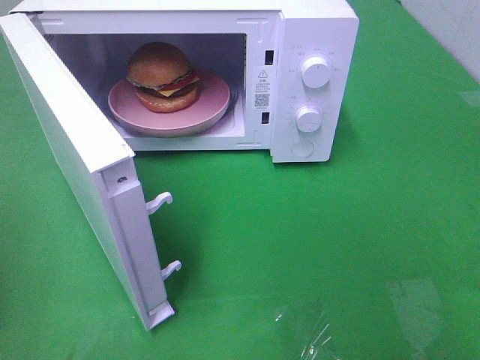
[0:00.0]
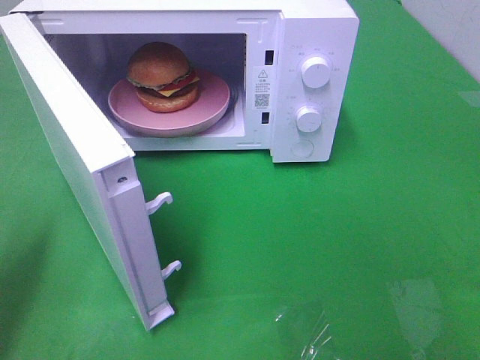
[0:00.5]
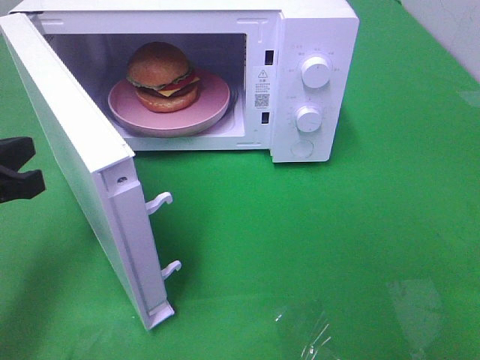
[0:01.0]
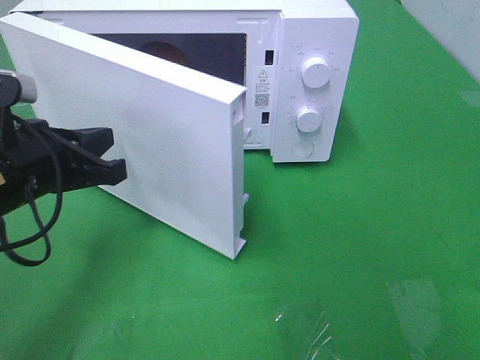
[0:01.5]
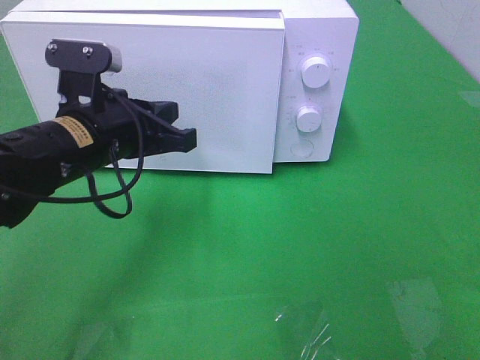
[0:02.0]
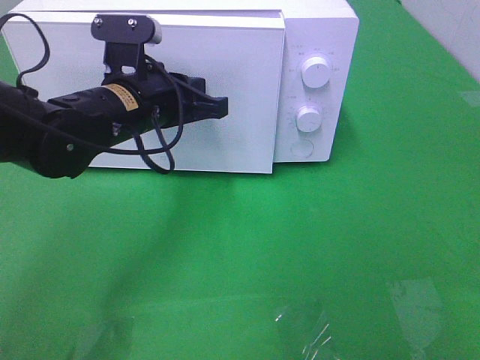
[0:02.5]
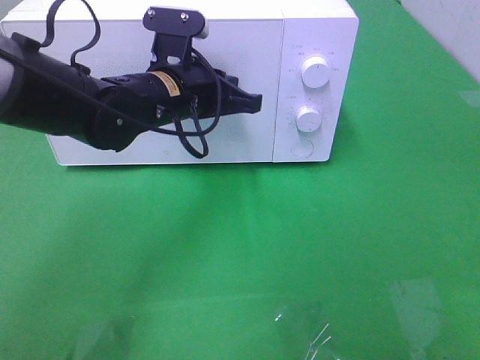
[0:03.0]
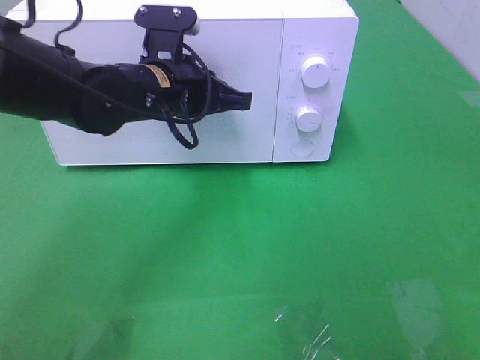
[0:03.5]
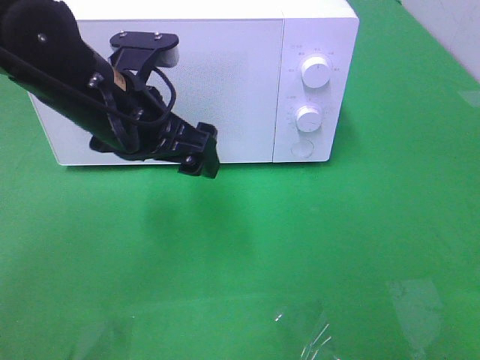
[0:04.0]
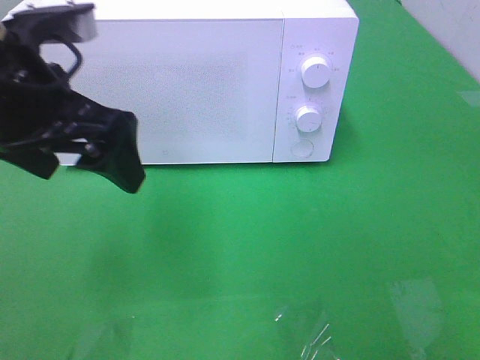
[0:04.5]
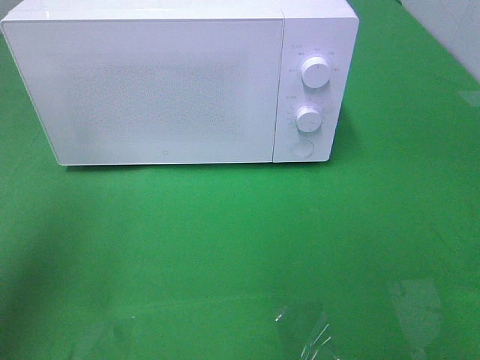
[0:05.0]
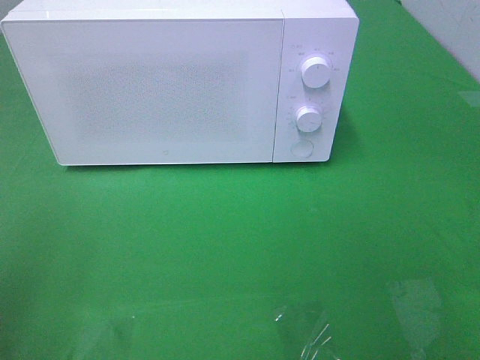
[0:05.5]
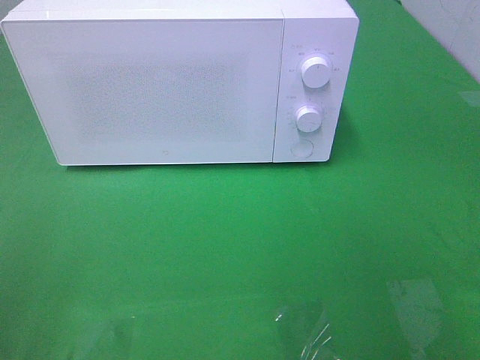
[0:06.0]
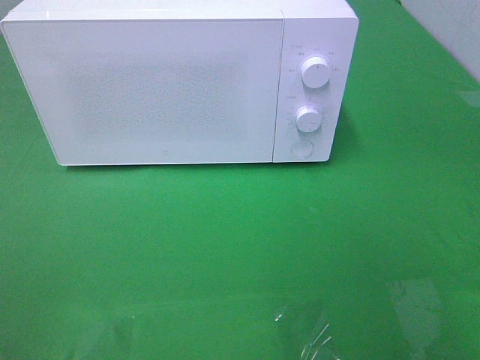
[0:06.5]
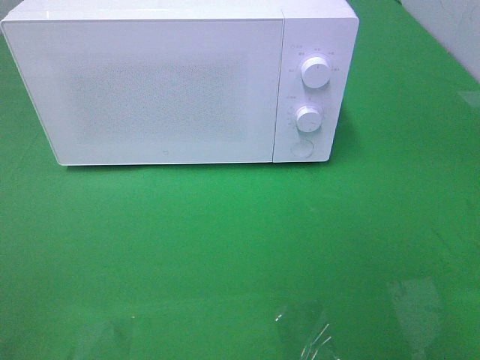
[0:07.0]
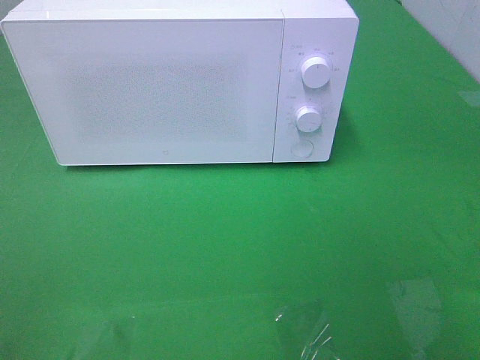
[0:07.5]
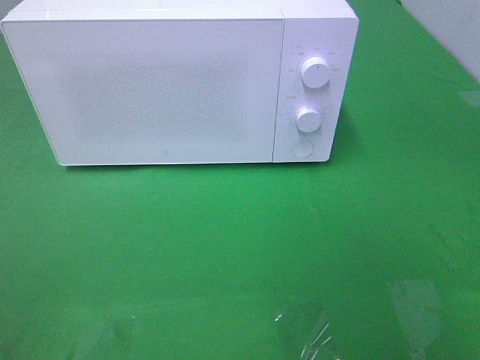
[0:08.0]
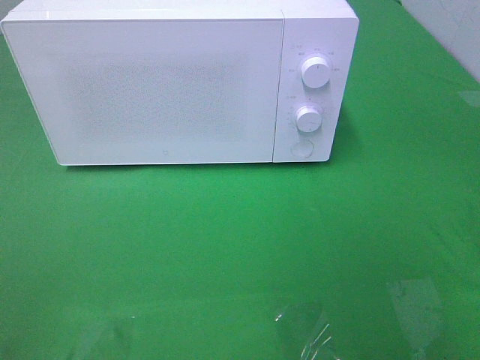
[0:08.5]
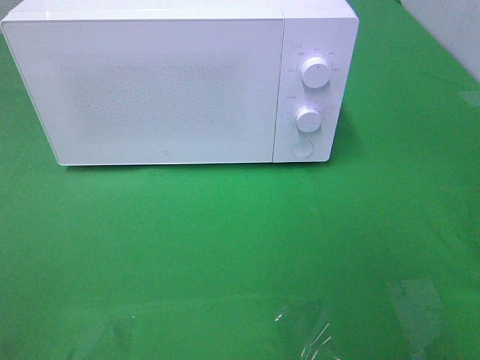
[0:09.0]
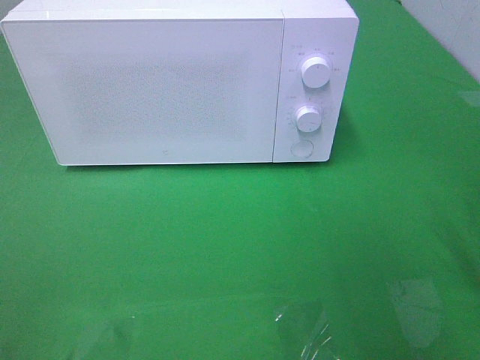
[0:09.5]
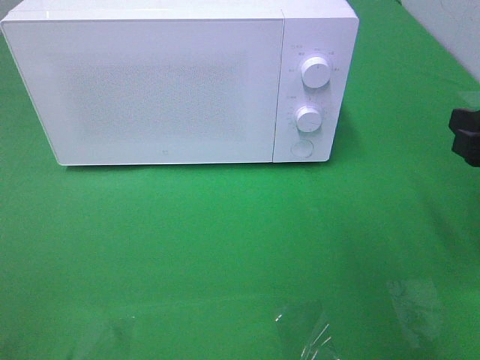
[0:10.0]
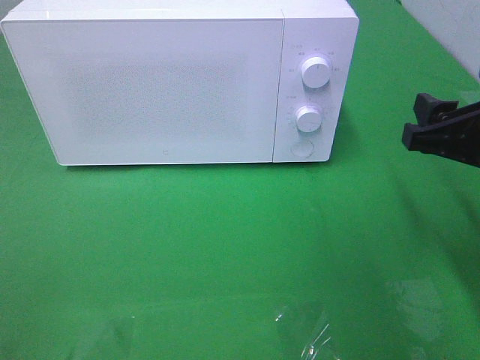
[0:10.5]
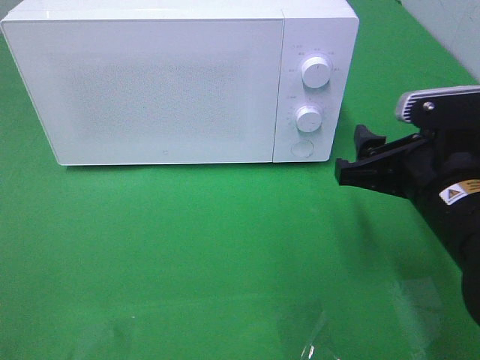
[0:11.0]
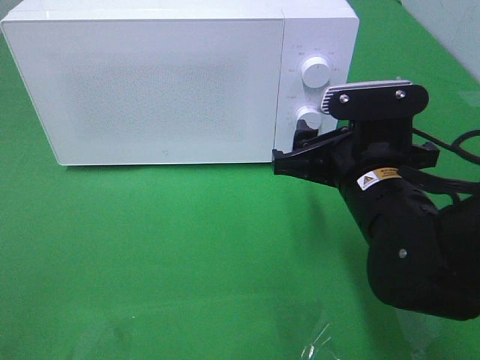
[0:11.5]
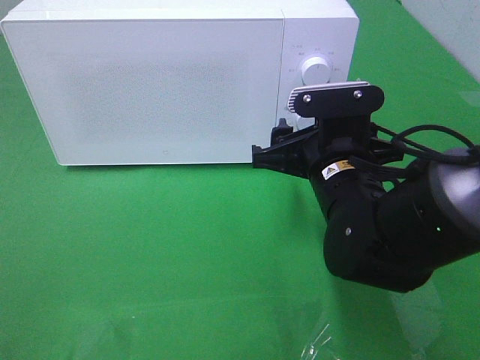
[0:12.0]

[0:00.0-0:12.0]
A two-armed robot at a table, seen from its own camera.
Task of the whole recording: Heat the burger.
Step, 0:00.0 to 0:03.5: Left hand: close the microwave door.
0:00.0 to 0:02.0: The left gripper heads to the right and forward, covering approximately 25 cm.
0:02.0 to 0:04.0: The left gripper opens.
0:04.0 to 0:06.0: The left gripper is displaced backward and to the left by approximately 30 cm.
0:08.0 to 0:10.0: The right gripper shifts approximately 20 cm forward.
0:10.0 to 0:12.0: The right gripper shifts about 20 cm to the left and downward.

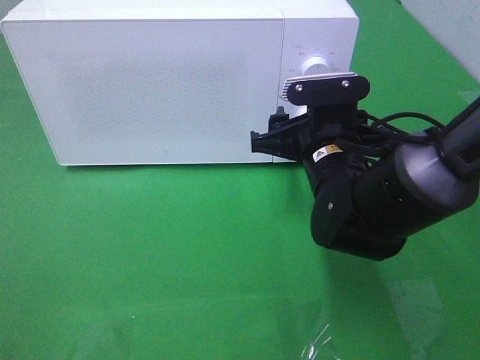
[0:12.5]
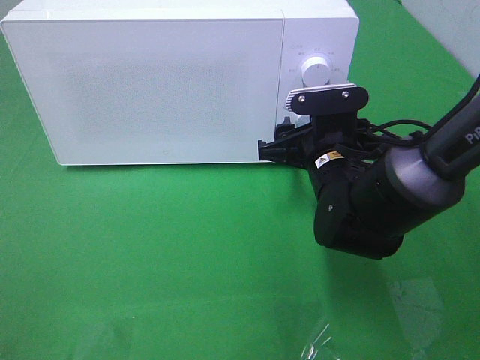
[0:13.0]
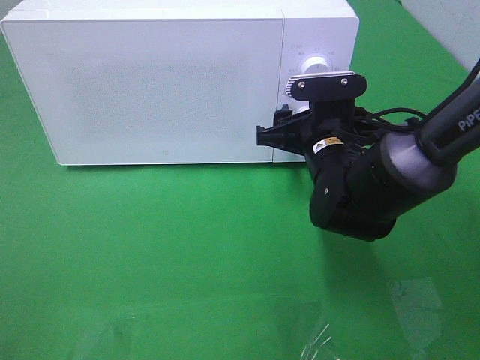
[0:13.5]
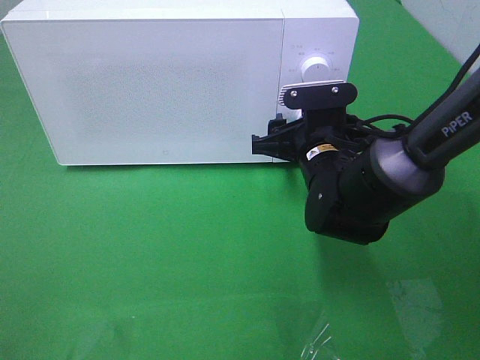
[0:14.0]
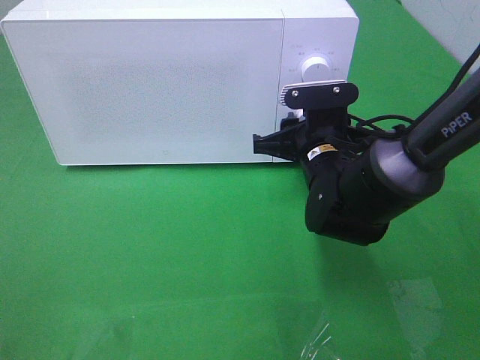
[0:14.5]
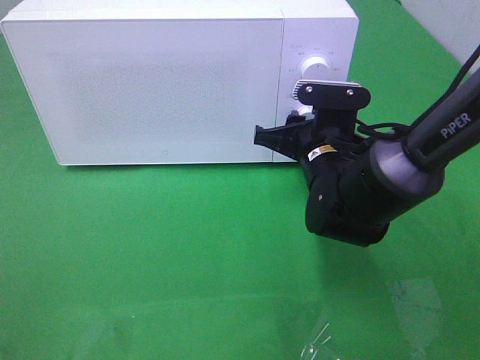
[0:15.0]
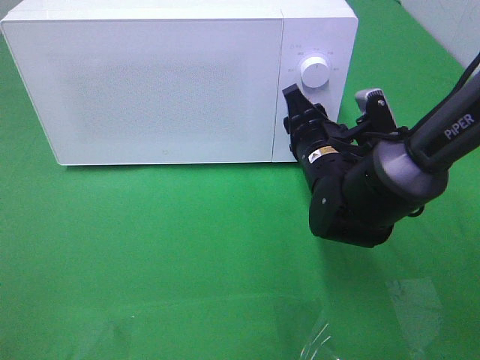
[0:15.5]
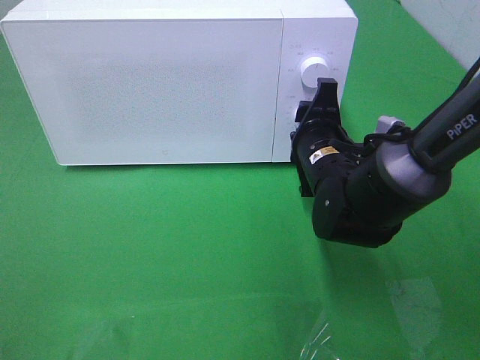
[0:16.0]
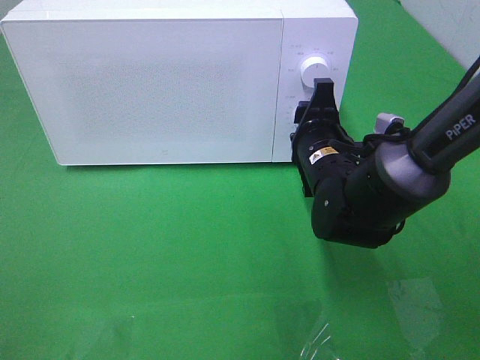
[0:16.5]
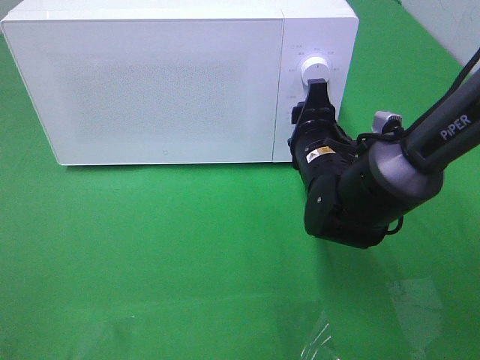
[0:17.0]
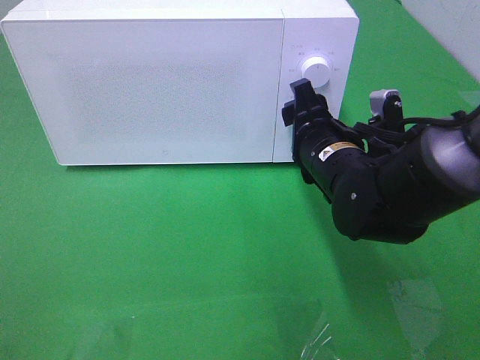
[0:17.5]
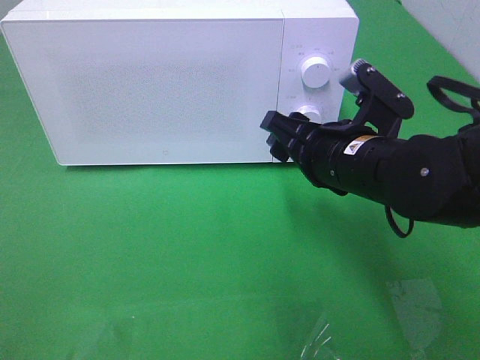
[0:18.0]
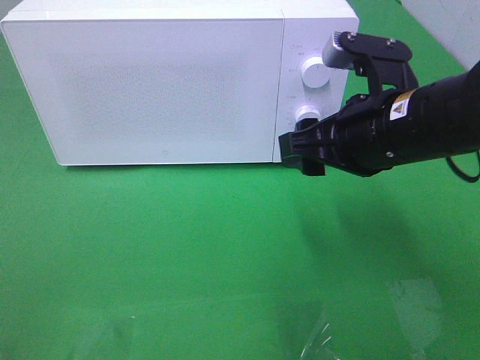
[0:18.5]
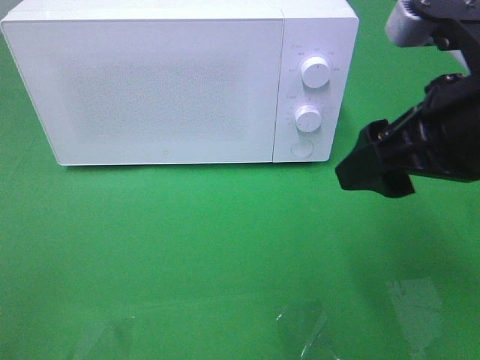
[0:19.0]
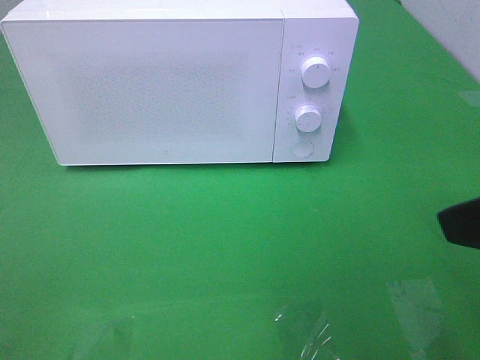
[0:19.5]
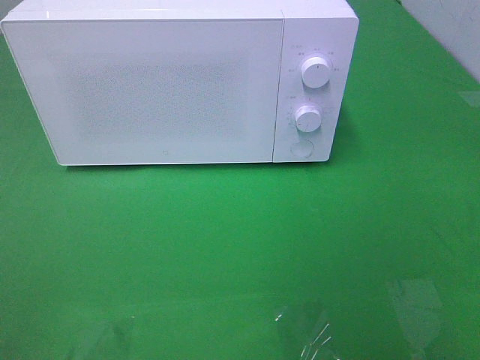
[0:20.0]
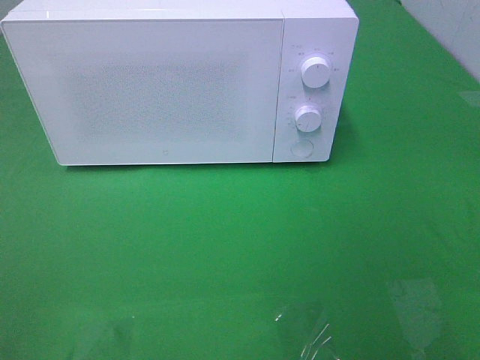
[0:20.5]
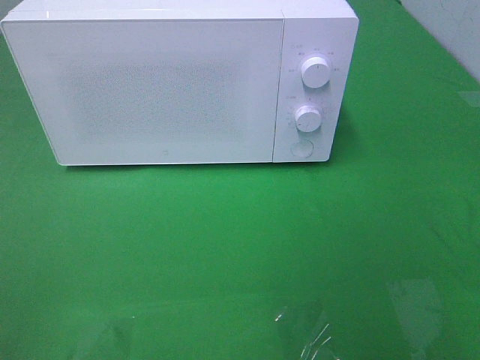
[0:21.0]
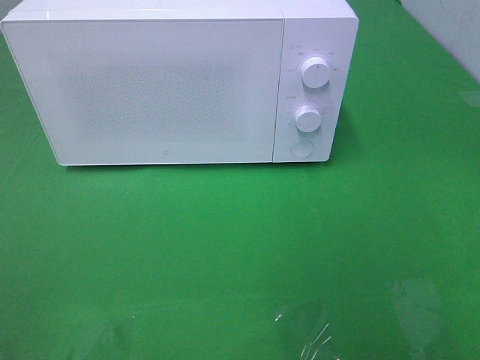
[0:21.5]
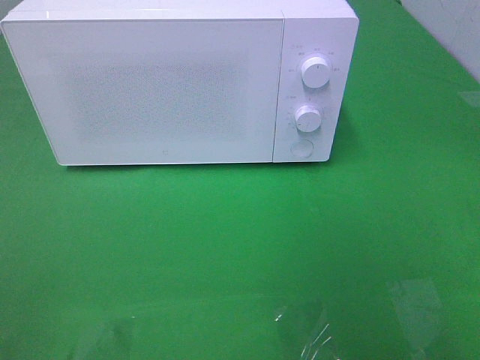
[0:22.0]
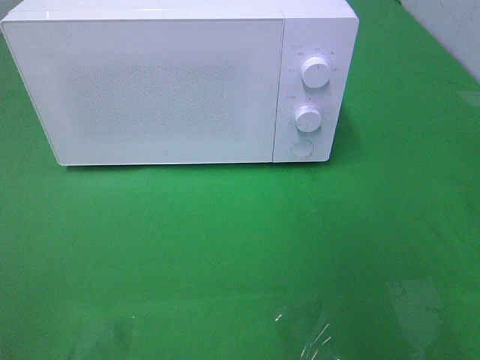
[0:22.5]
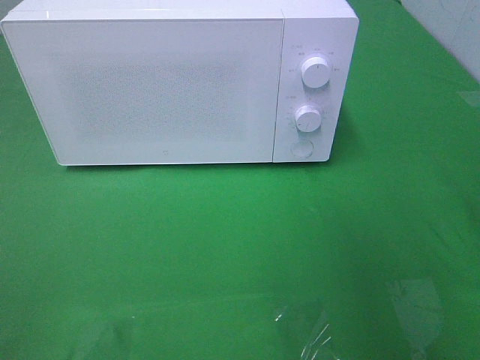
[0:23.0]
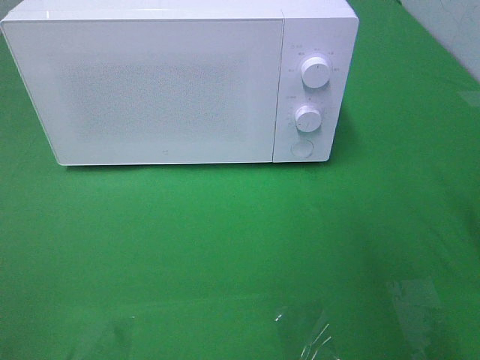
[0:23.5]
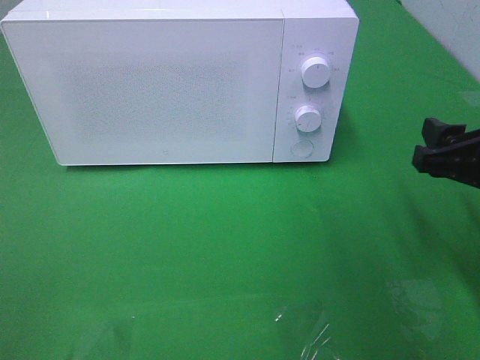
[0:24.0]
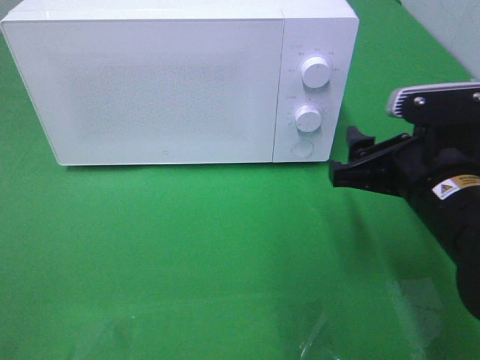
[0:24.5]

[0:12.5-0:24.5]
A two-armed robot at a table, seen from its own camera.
Task of the whole recording: Heat the burger.
Step, 0:12.5 to 0:17.5: Right hand: twist timer button.
0:12.5 to 0:14.5: The grippers move only a little.
0:16.5 to 0:18.5: The right gripper moves upward and backward, some 15 cm.
0:18.5 to 0:20.5: The right gripper moves backward and to the right, some 30 cm.
0:22.5 to 0:24.5: The right gripper moves downward, to the left and forward, approximately 20 cm.

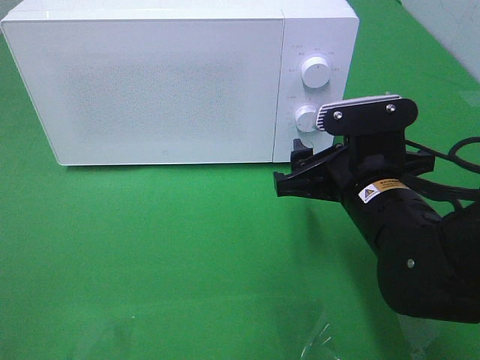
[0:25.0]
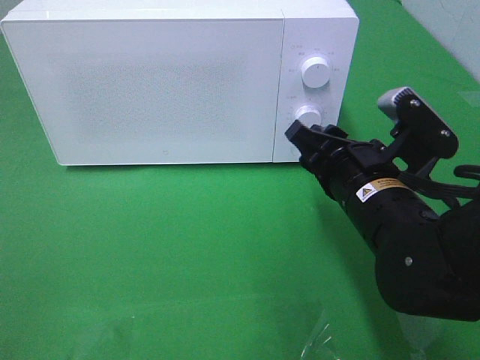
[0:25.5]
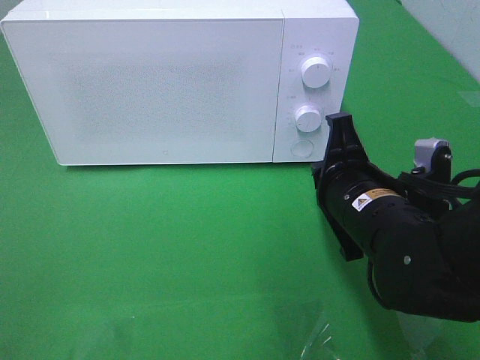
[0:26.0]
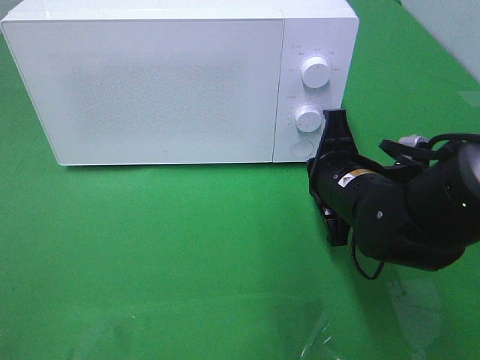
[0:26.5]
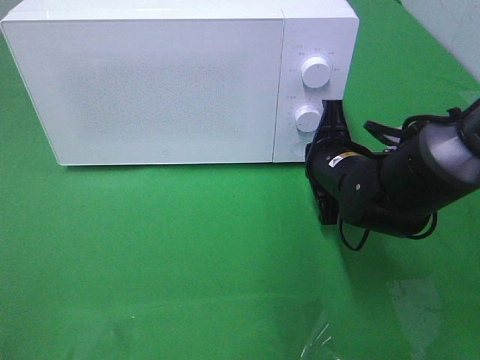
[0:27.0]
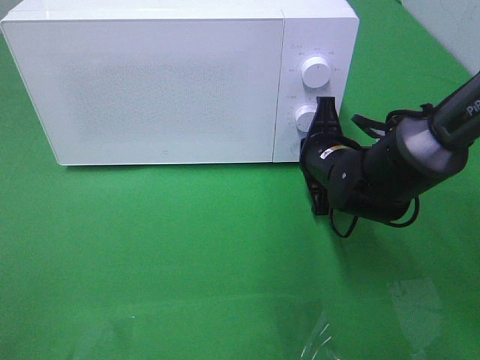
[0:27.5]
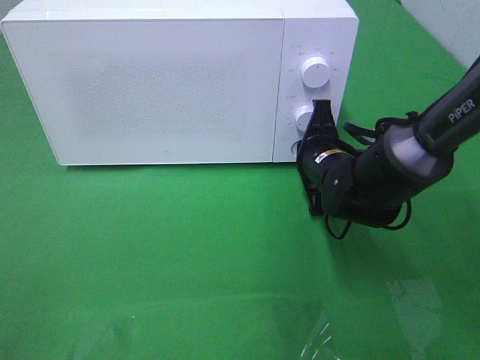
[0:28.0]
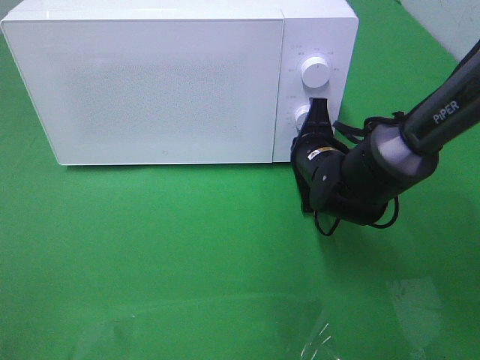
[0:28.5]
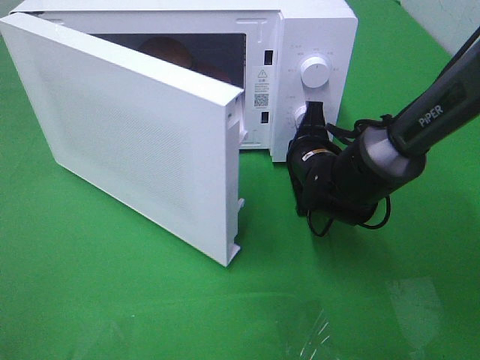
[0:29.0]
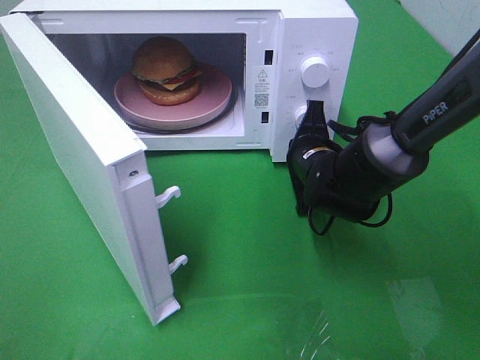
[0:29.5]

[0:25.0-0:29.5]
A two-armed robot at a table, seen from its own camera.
Task of the whole recording: Heat the burger.
0:25.0 to 0:27.0: The right gripper moves forward, approximately 10 cm, and closes.
0:27.0 to 0:29.5: The right gripper shifts by about 5 cm.
